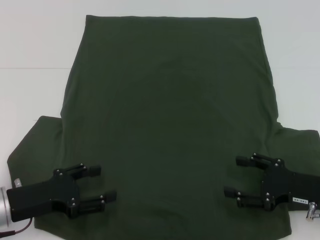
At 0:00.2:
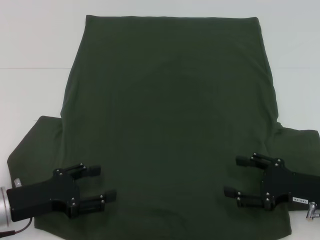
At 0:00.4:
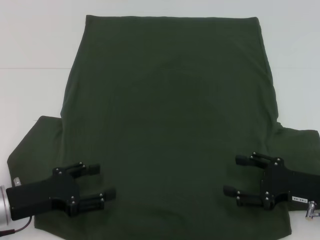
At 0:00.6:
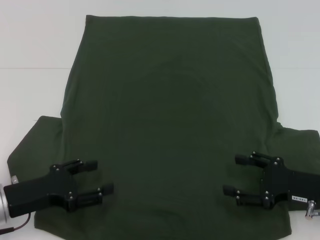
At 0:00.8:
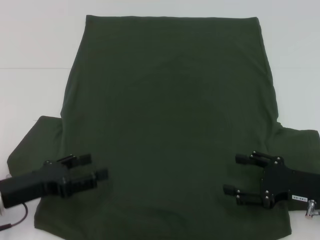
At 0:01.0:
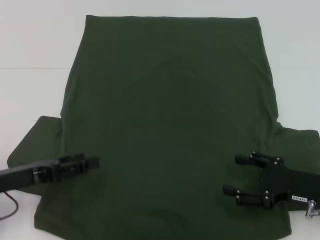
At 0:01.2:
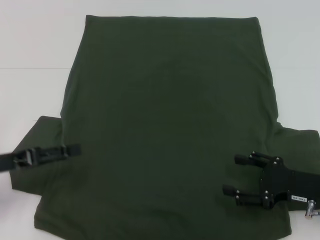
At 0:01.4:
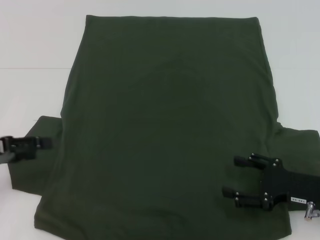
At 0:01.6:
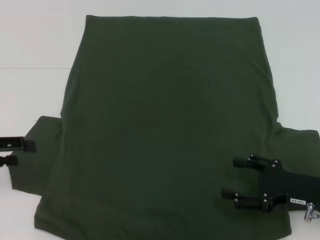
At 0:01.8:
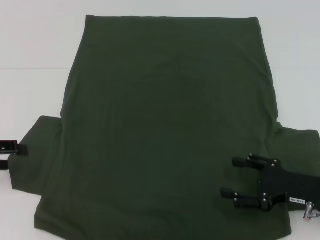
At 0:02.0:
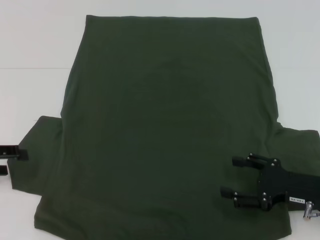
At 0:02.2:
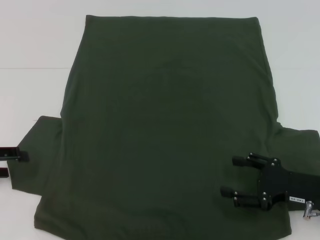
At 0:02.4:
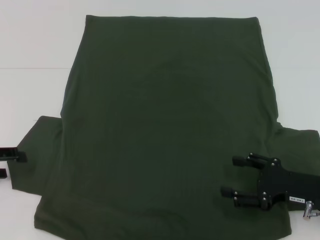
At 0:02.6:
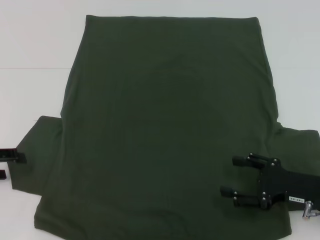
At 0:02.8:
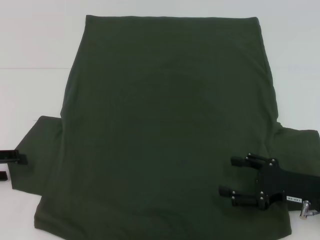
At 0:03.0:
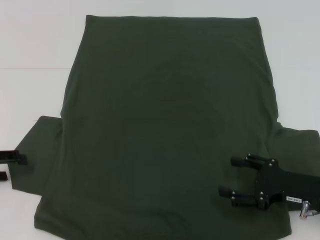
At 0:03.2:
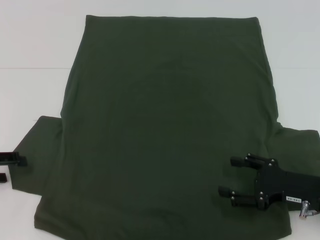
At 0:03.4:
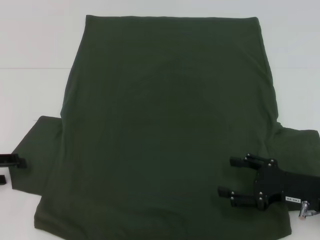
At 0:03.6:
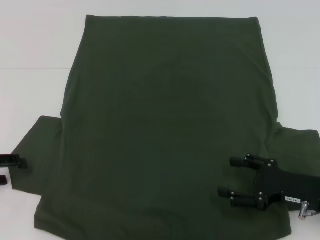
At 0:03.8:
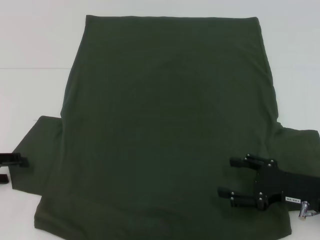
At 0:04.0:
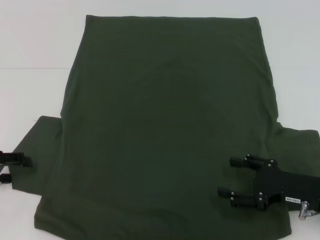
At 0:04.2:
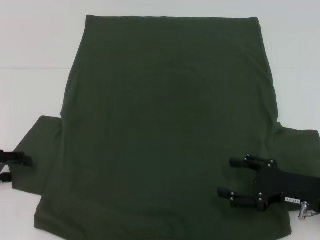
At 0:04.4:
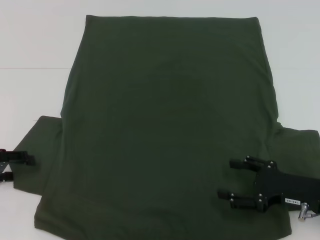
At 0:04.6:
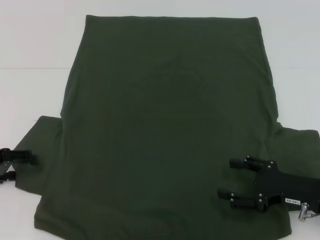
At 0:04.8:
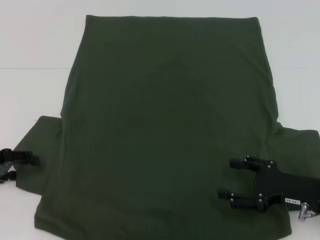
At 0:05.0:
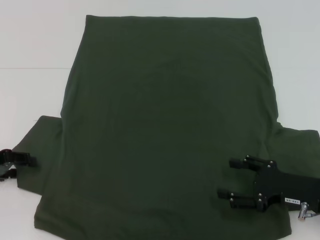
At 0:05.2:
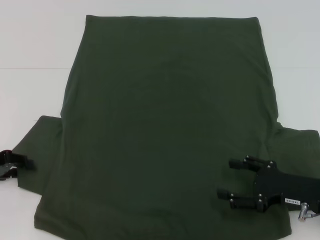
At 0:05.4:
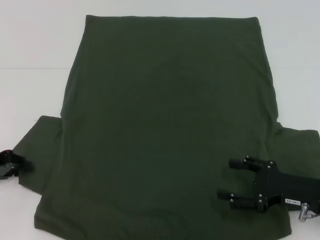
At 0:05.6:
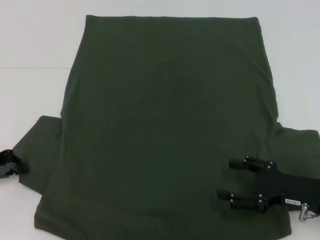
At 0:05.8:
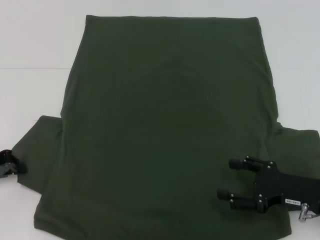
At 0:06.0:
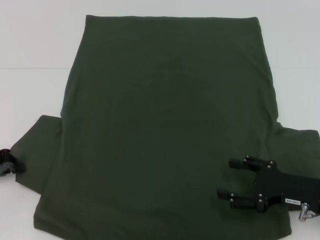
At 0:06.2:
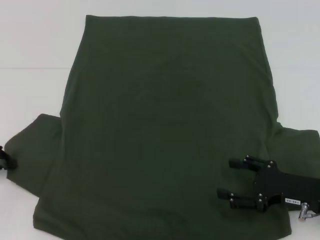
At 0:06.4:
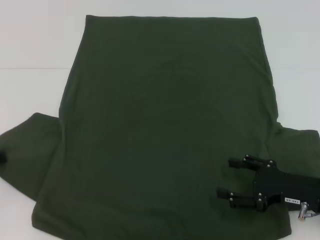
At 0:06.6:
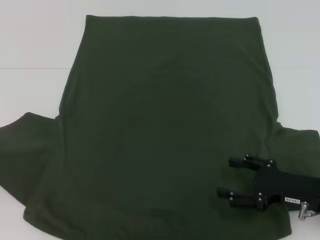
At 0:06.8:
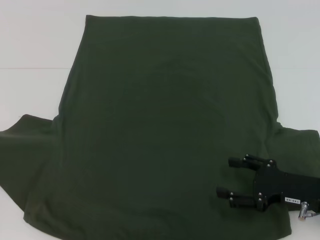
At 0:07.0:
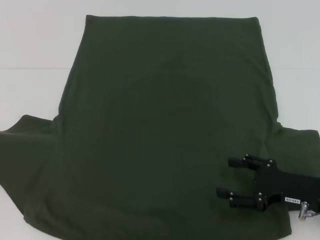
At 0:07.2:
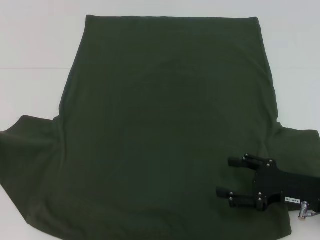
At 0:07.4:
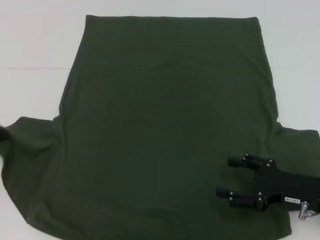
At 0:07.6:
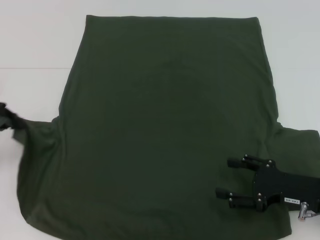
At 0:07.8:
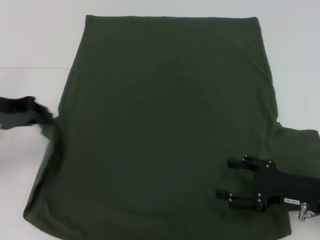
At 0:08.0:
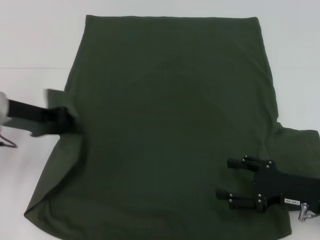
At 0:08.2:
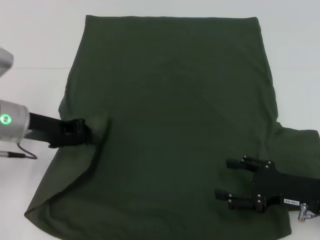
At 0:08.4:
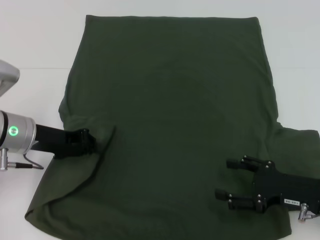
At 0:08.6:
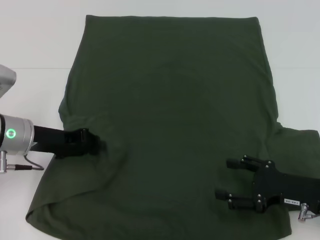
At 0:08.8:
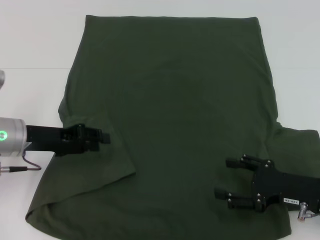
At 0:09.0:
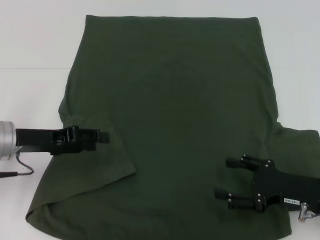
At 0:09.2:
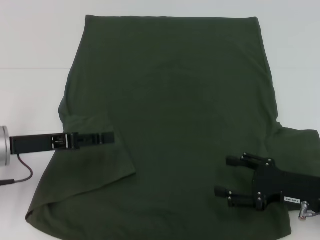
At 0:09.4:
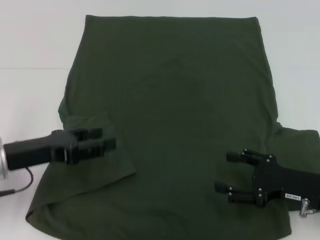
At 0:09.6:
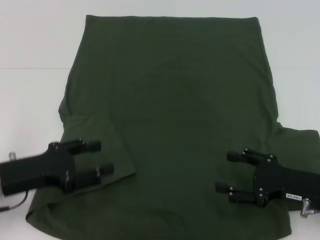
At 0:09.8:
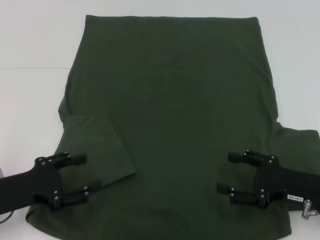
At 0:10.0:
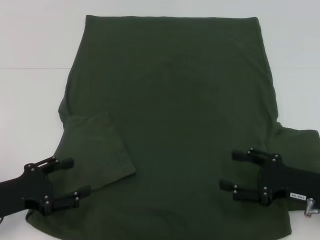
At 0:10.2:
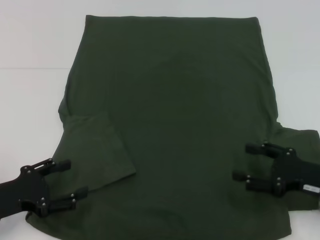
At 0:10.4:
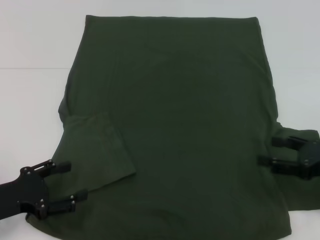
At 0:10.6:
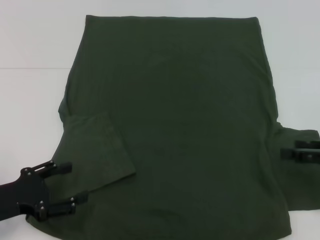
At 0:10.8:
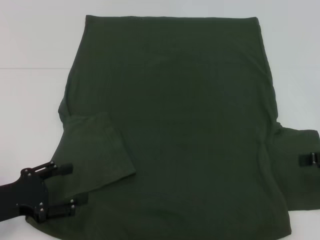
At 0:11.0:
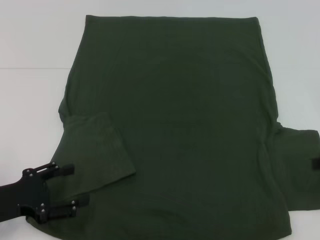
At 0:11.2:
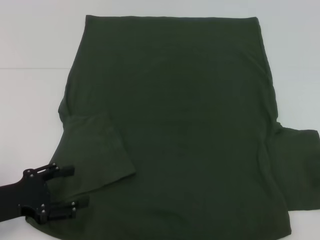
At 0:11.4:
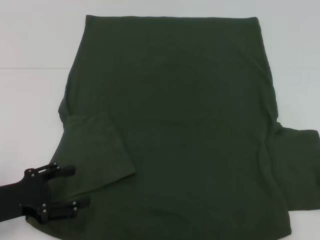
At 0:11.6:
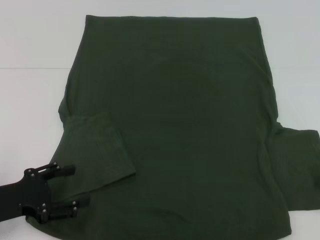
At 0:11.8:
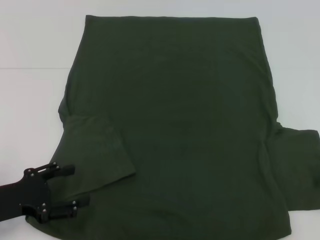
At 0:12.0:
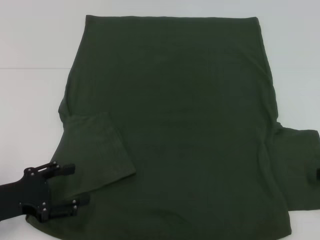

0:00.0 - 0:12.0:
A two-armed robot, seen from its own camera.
Step, 0:00.0 - 0:08.8: Fold the bottom left sleeve with your left hand.
0:00.0 - 0:01.6: The left gripper goes roughly 15 cm to the left and upward.
0:01.6 - 0:03.0: The grippers move only a little.
0:03.0 - 0:04.4: The two grippers keep their place.
0:04.4 - 0:06.0: The left gripper closes up.
0:06.0 - 0:07.6: The left gripper goes approximately 10 cm upward.
0:07.6 - 0:09.0: The left gripper shifts approximately 10 cm to the right and downward, and opens its fingers.
0:09.0 - 0:10.4: The left gripper moves backward, approximately 10 cm, and opens up. The right gripper moves to the right, some 5 cm.
0:10.4 - 0:12.0: The right gripper goes roughly 5 cm to the right.

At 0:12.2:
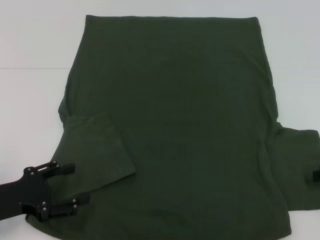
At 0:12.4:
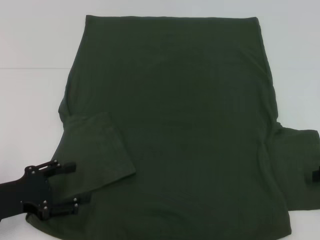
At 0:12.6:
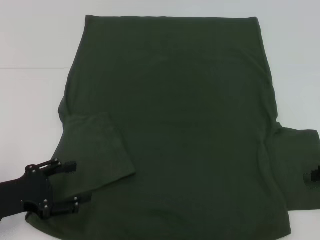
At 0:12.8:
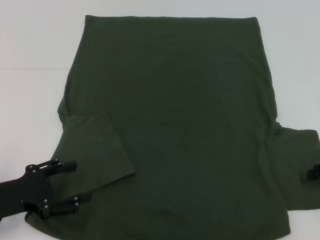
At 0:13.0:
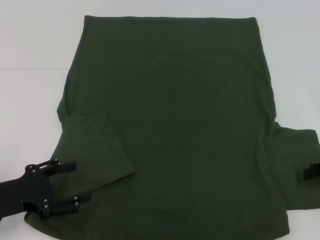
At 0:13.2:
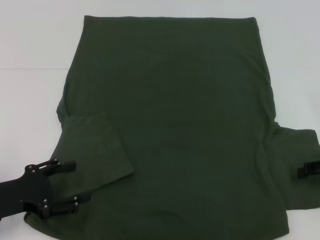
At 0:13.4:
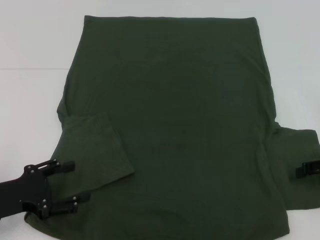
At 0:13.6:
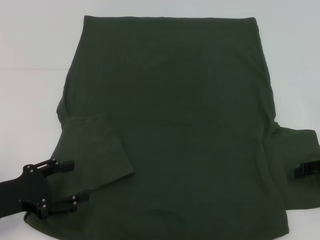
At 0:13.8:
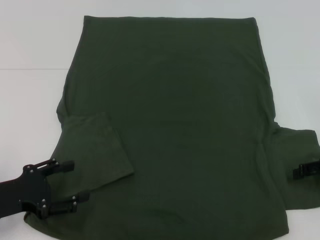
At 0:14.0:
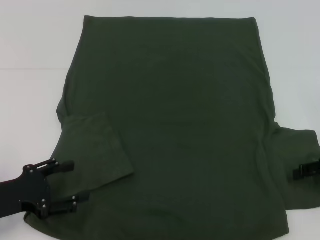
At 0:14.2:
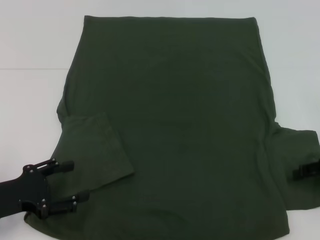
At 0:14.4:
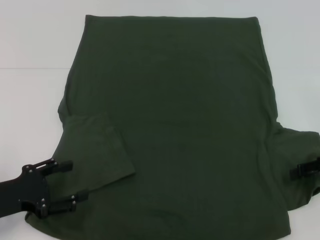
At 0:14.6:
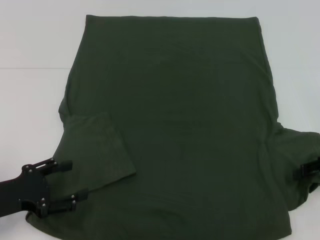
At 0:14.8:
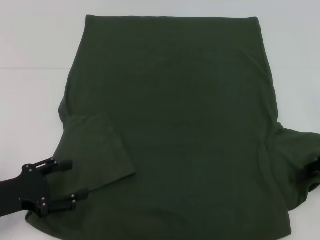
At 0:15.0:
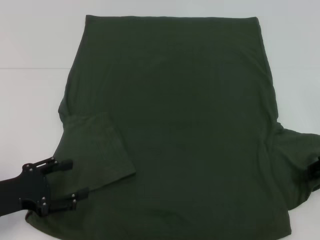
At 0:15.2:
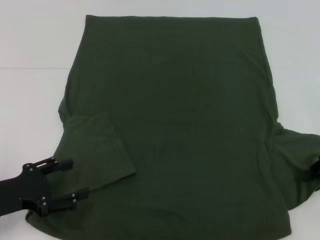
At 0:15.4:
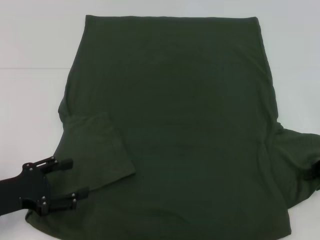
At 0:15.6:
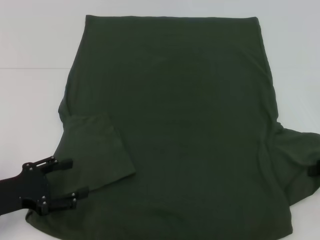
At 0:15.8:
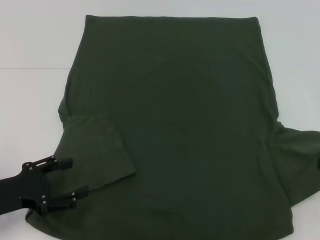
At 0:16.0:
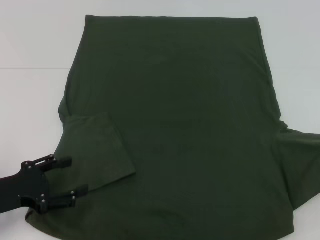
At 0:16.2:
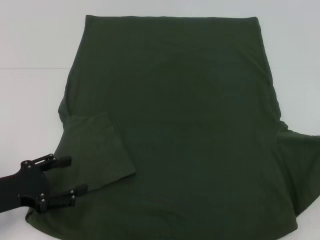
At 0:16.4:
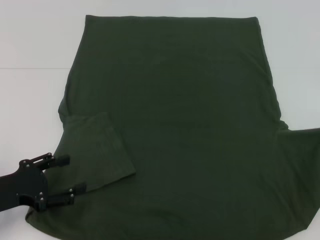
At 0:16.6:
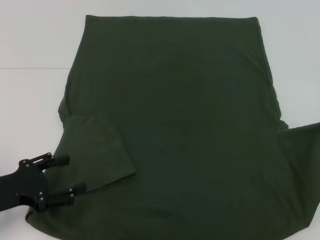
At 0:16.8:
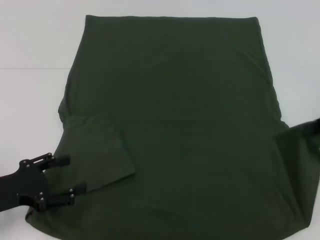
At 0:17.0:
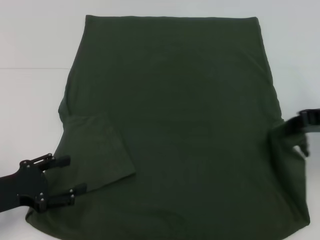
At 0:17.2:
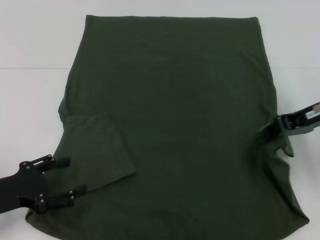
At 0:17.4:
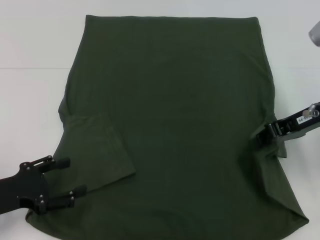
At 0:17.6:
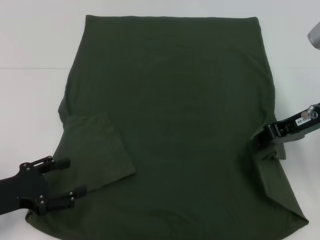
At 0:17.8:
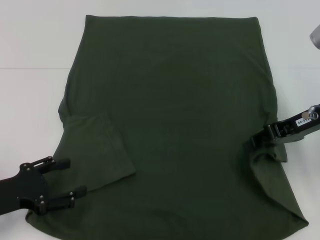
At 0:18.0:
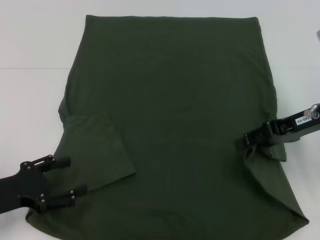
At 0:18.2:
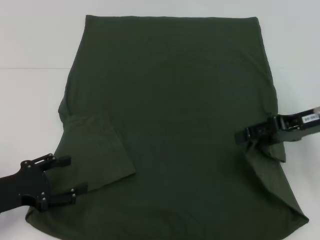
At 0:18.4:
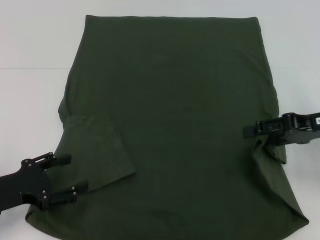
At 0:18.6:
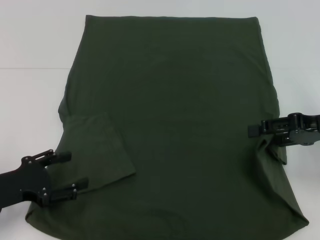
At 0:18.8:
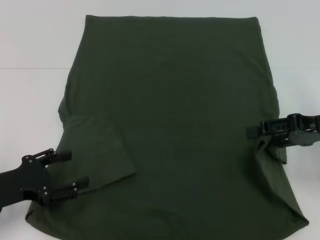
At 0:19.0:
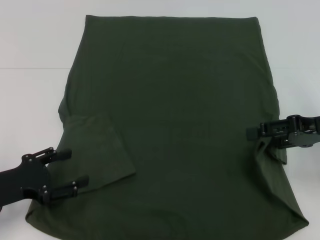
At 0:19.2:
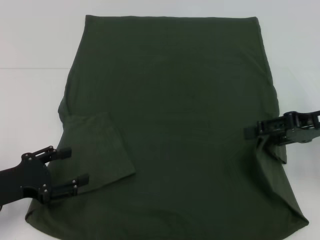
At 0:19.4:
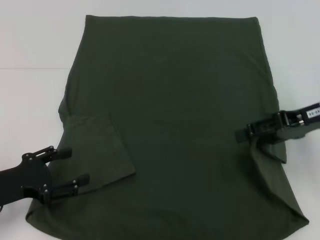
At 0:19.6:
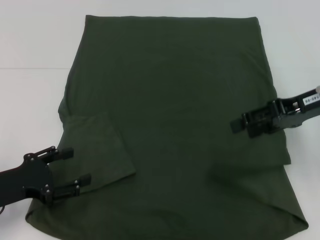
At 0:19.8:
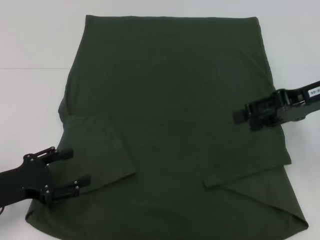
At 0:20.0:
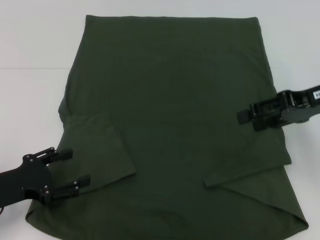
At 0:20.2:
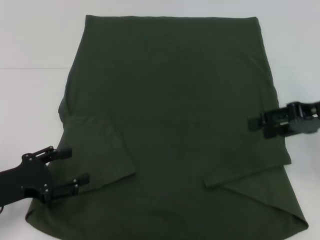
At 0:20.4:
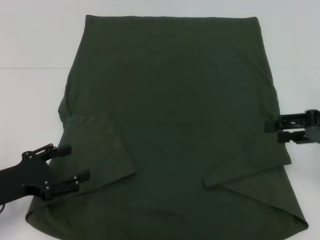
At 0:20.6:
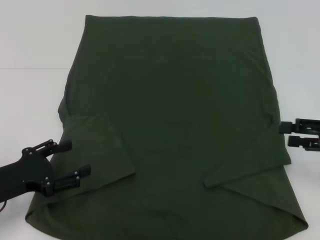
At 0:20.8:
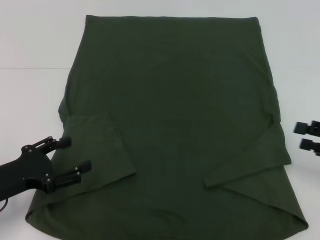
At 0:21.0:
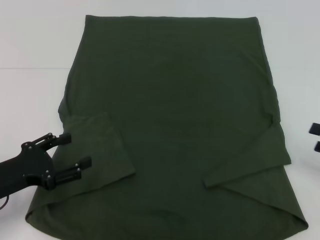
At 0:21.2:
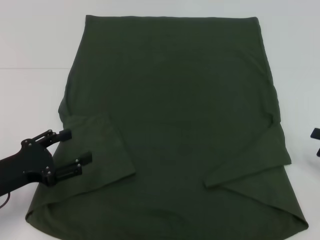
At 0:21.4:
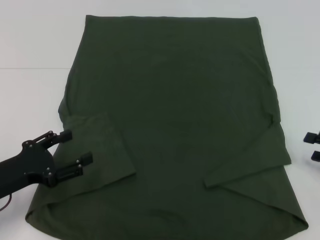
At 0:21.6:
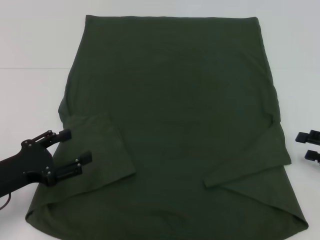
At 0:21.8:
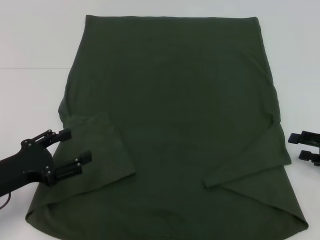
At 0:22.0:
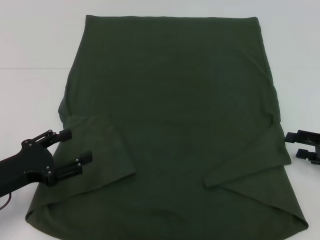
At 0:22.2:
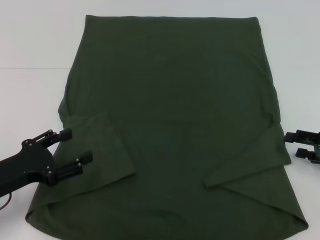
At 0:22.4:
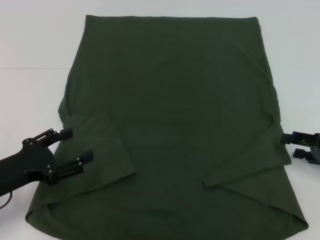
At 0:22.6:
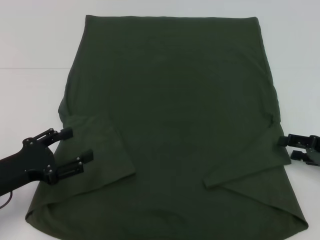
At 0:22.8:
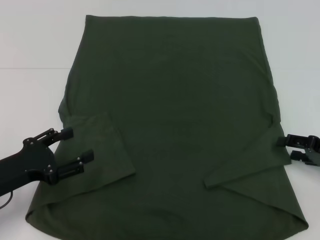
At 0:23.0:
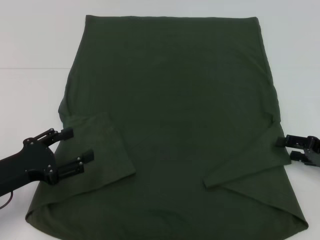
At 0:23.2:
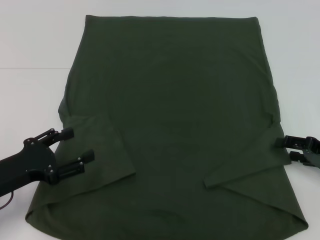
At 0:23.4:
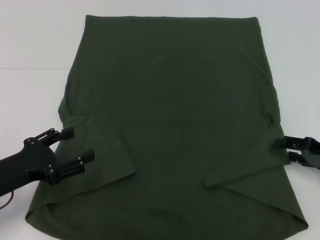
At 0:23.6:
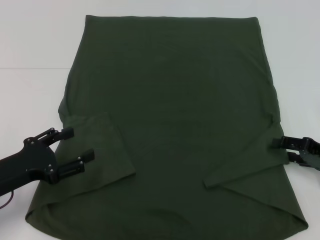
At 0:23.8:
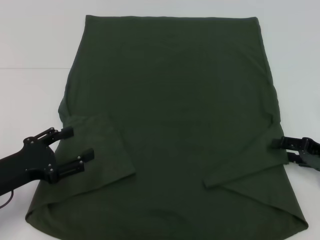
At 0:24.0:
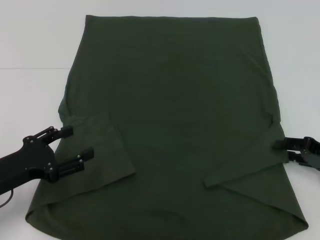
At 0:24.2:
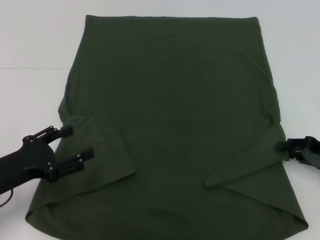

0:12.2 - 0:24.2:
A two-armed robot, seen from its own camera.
0:12.2 - 0:13.8: The grippers stay close to where they were, moving slightly.
0:13.8 - 0:15.2: The right gripper closes up.
0:15.2 - 0:16.6: The right gripper heads upward, covering approximately 5 cm.
0:16.6 - 0:18.2: The right gripper moves to the left, approximately 10 cm, and opens up.
0:18.2 - 0:19.8: The right gripper ends up roughly 5 cm from where it was.
0:19.8 - 0:21.2: The right gripper goes some 20 cm downward, to the right and backward.
0:21.2 - 0:22.6: The right gripper moves roughly 5 cm.
0:22.6 - 0:24.2: Neither gripper changes place.
